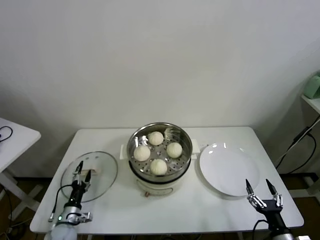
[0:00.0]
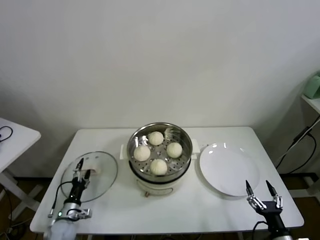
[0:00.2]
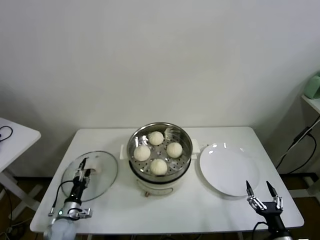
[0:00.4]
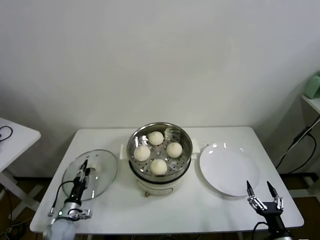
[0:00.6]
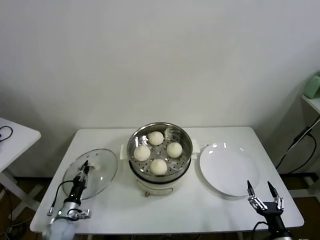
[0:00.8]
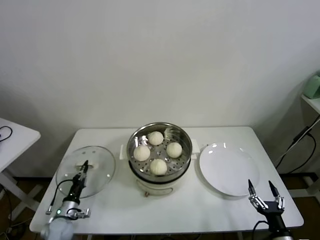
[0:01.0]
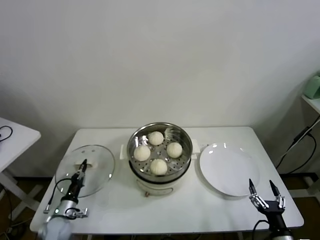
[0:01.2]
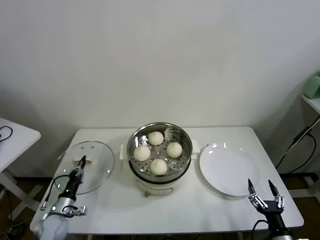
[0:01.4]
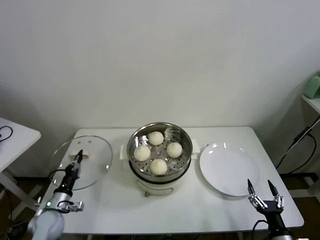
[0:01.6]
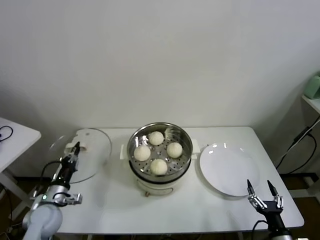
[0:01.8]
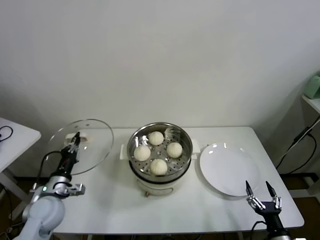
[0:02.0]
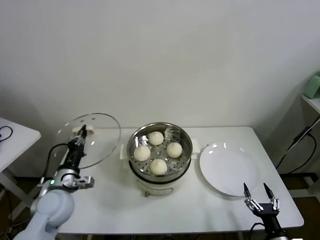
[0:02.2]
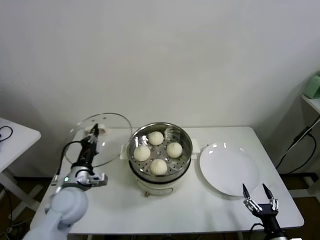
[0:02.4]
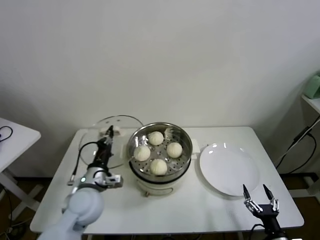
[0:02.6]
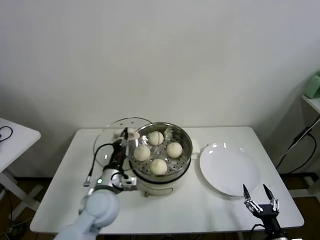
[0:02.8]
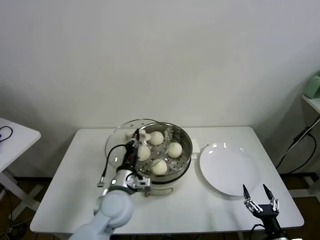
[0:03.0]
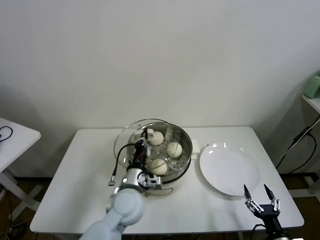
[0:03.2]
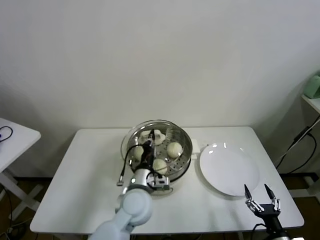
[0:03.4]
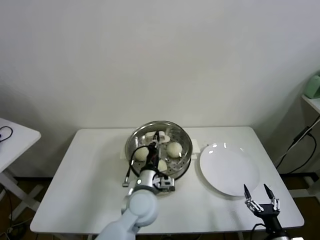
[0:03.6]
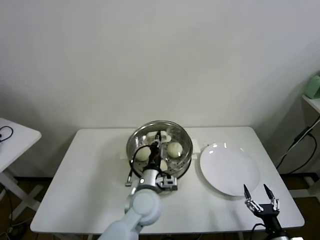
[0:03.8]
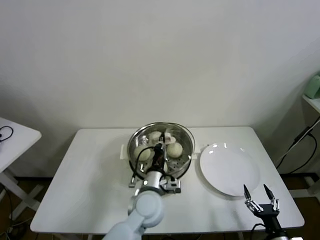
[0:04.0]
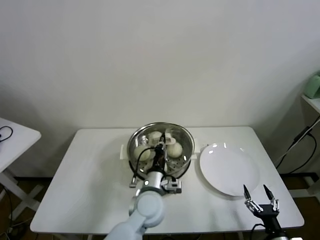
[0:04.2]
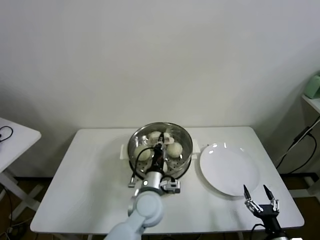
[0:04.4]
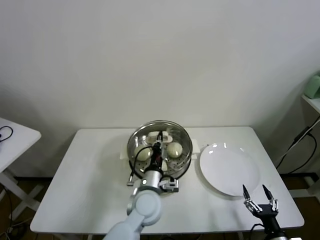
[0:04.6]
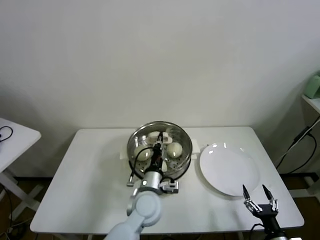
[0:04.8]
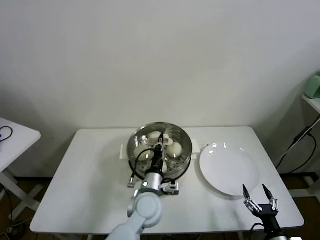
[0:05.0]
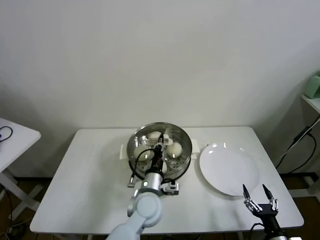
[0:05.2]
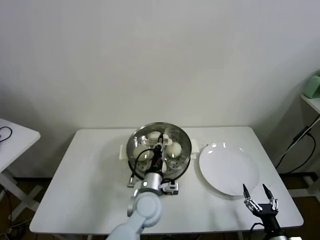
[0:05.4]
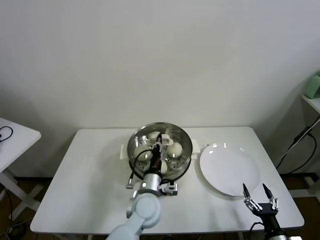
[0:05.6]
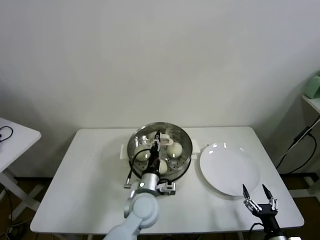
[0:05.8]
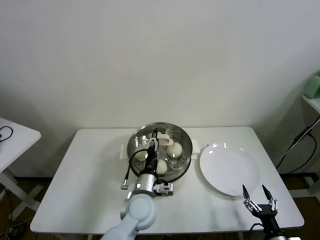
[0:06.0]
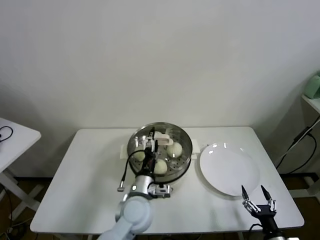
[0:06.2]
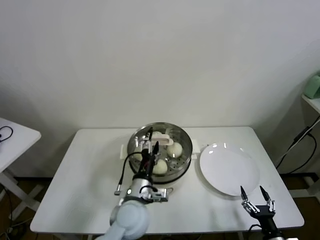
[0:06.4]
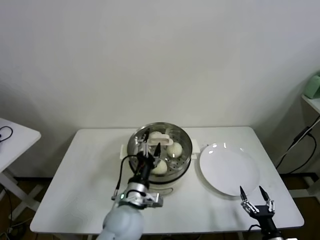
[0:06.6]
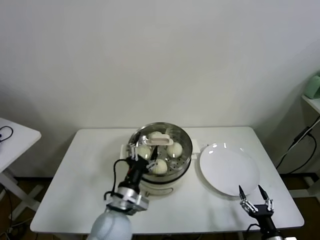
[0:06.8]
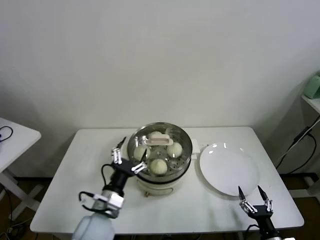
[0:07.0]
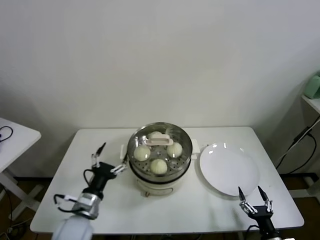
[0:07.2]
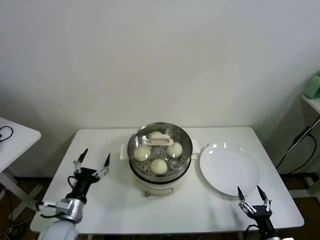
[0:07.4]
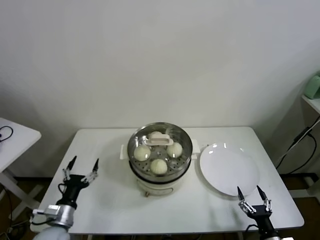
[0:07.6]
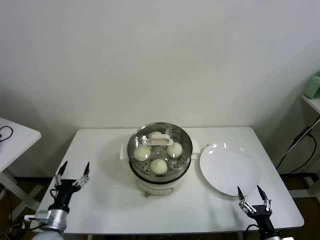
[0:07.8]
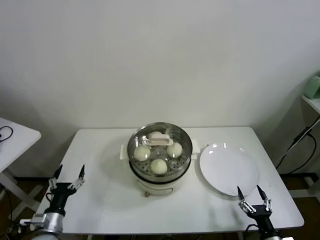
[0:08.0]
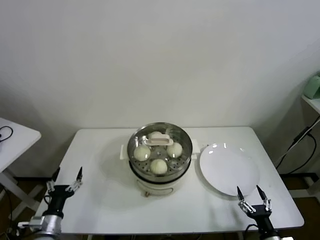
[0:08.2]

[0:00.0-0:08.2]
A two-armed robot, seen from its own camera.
Task of the whole recording: take steamed baozi put them in steamer.
0:00.0 to 0:01.6: The left gripper moves upward, roughly 10 cm, and closes its fingers.
0:01.6 to 0:03.2: The left gripper moves to the right and upward, approximately 30 cm.
0:03.2 to 0:05.0: The left gripper moves to the right, some 5 cm.
0:05.0 to 0:06.6: The left gripper moves about 10 cm, and opens up.
0:06.6 to 0:08.2: The left gripper goes roughly 30 cm to the left and downward.
